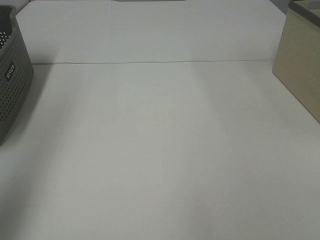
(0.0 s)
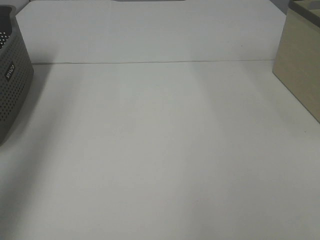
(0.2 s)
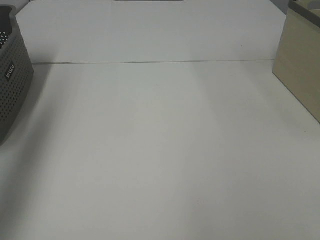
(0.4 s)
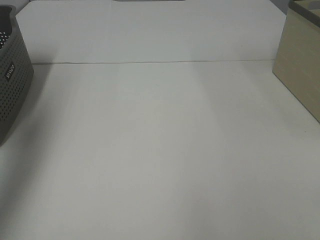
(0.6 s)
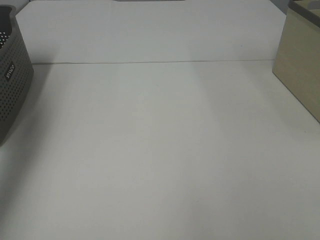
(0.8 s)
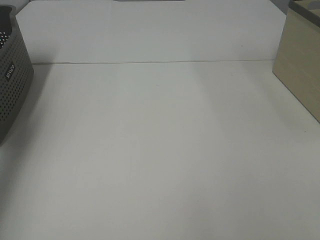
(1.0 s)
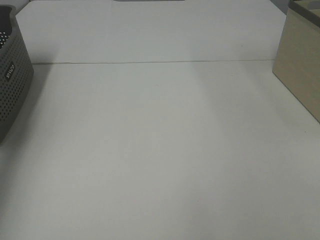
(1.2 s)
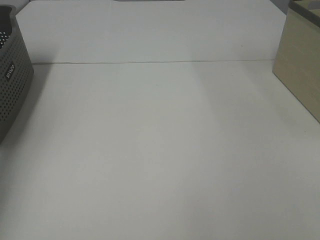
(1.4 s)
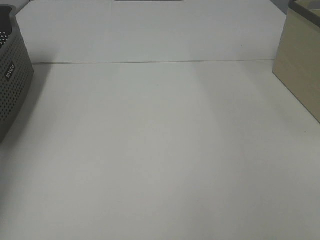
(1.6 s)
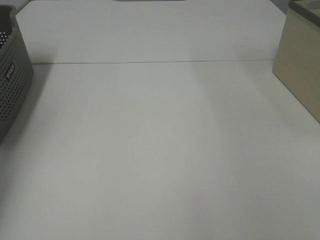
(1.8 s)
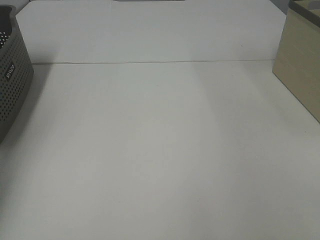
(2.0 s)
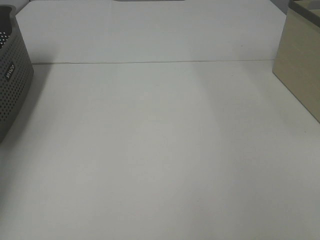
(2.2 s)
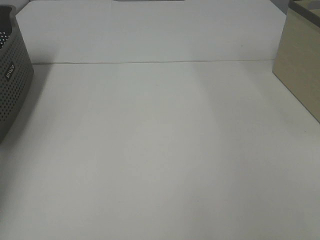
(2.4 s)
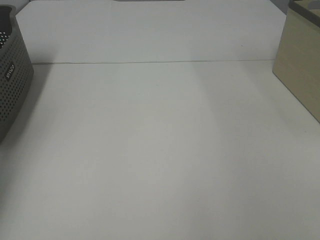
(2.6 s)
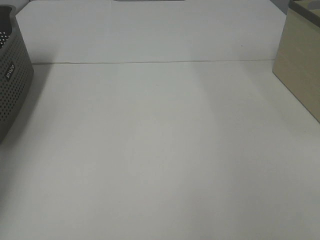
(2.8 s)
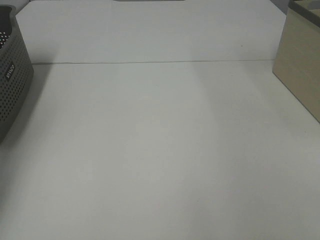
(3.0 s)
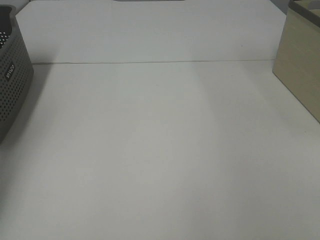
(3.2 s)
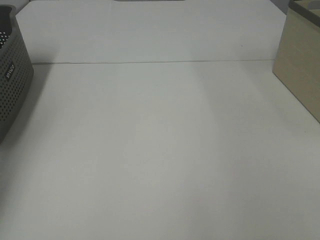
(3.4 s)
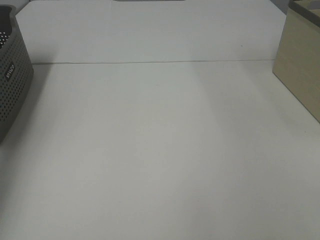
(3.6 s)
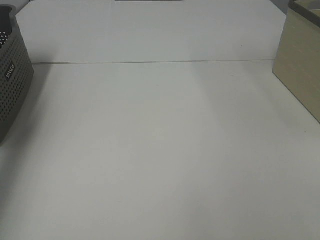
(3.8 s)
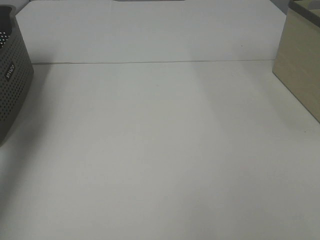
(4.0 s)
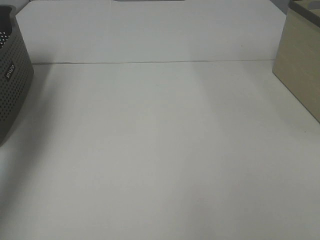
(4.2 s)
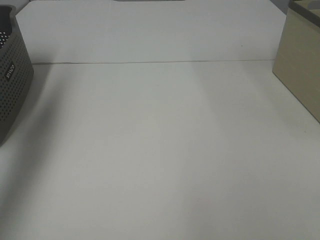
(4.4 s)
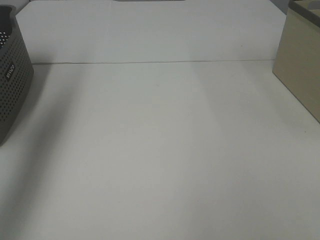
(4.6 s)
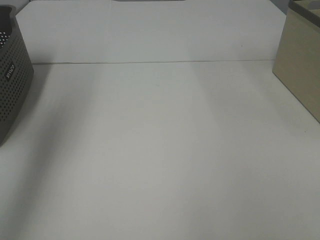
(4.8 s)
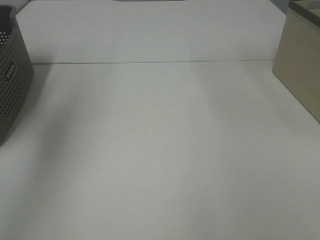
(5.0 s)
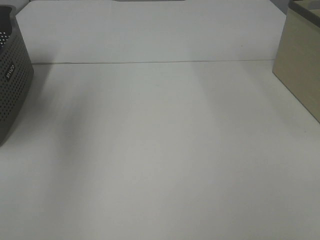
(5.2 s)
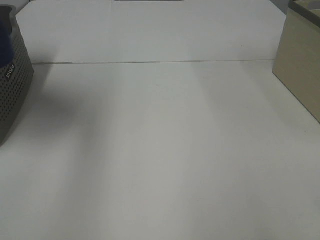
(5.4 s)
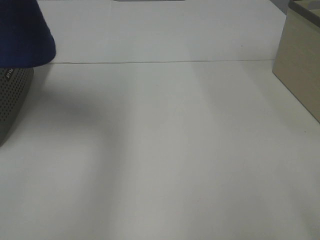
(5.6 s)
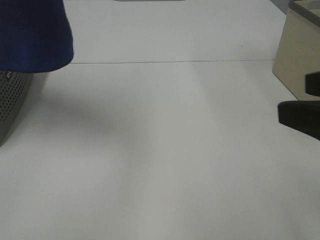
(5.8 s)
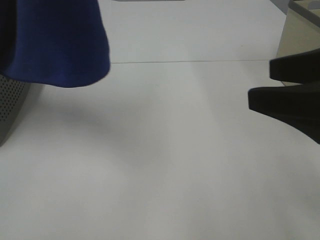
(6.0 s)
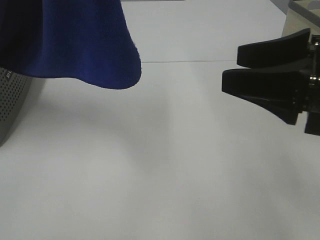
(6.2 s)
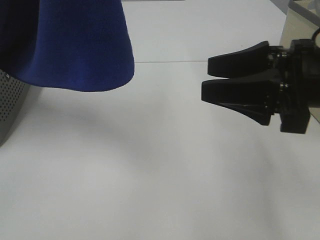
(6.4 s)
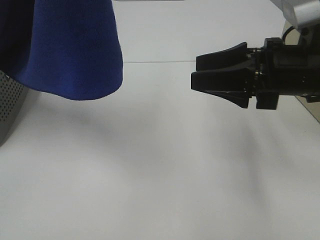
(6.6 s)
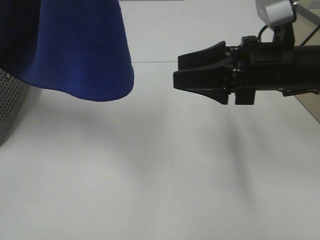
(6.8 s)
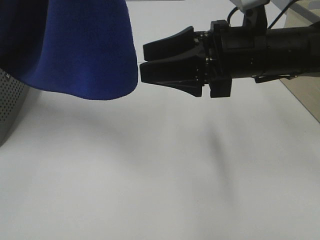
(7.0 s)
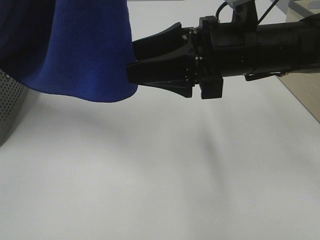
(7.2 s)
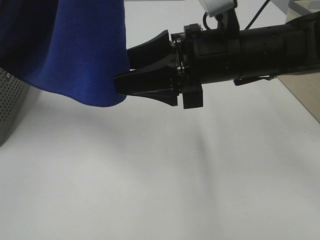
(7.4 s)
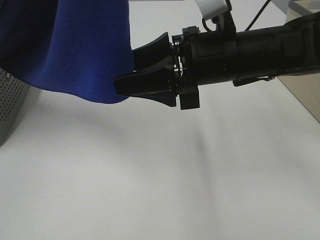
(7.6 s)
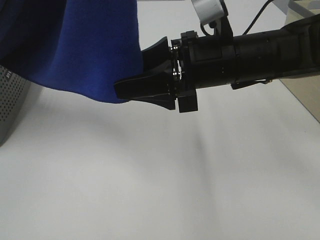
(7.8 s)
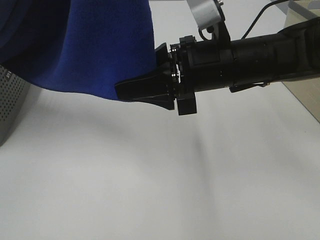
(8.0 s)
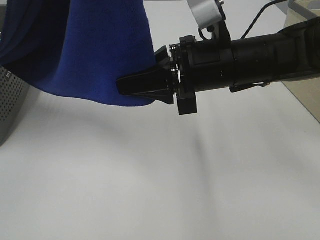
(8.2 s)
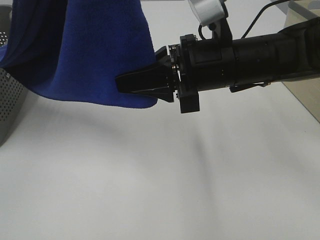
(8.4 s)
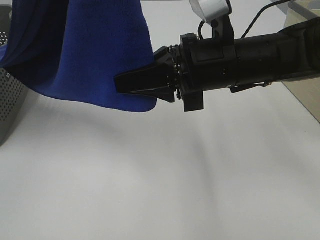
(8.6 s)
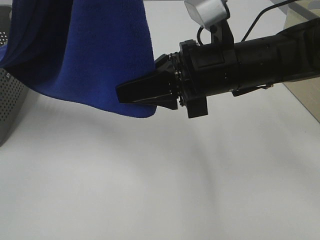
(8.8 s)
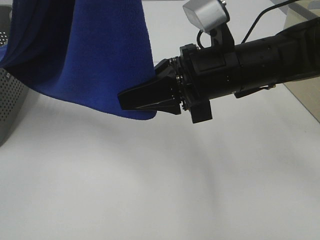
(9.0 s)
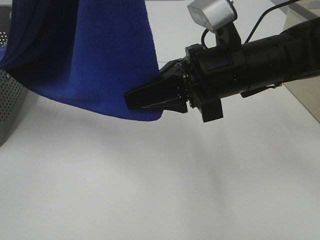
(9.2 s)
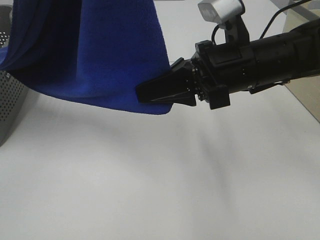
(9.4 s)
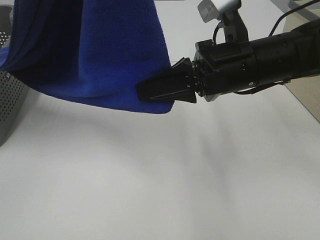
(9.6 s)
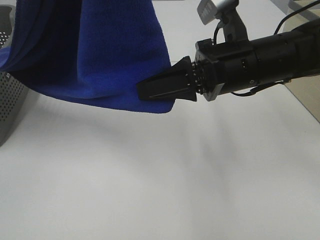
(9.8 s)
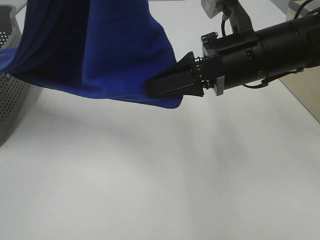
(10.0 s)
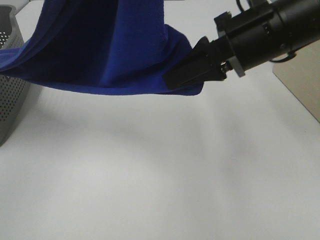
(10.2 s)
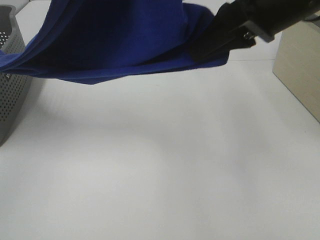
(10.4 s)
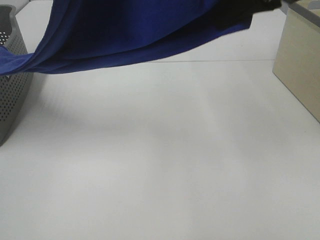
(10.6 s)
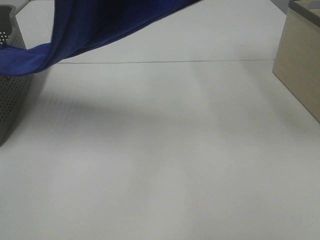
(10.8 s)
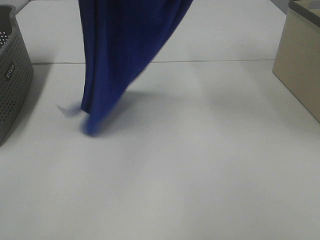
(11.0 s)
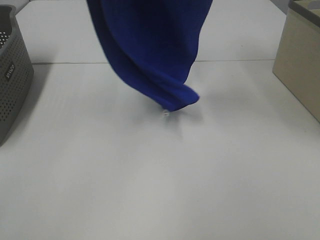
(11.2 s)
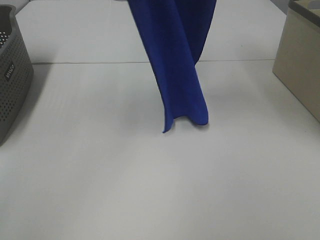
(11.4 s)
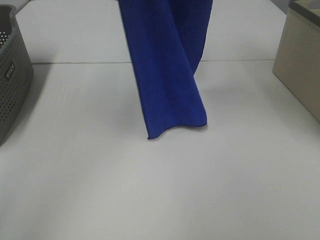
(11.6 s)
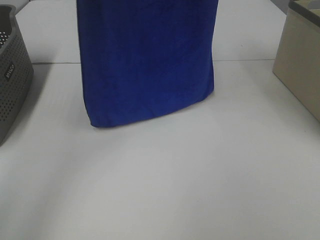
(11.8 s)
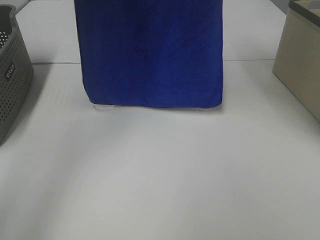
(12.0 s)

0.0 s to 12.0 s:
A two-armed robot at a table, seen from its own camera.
Task of the whole recording: Remove the towel and place it.
Step, 5.0 to 8.8 s: Right hand: grab a corner of the blue towel and straighten it.
0.0 to 1.6 s: The left gripper goes about 35 cm forward, downward and to the left.
3.0 to 4.4 s: The left gripper goes about 25 cm upward.
4.4 to 6.0 s: The left gripper travels to the right, backward and upward by roughly 30 cm, while the right gripper moves forward and to the left, roughly 15 cm.
6.0 to 7.6 s: The right gripper shifts roughly 20 cm to the left, forward and downward.
7.6 to 9.0 s: The right gripper closes.
9.0 to 10.4 s: The left gripper moves roughly 5 cm; the right gripper travels upward and to the right by approximately 15 cm.
10.4 to 12.0 s: The left gripper heads forward and to the left, covering approximately 20 cm; the right gripper travels upward and forward by approximately 20 cm.

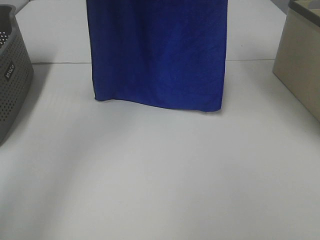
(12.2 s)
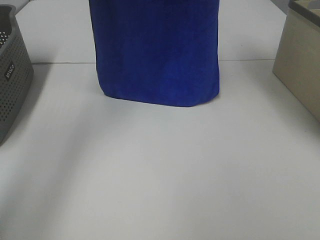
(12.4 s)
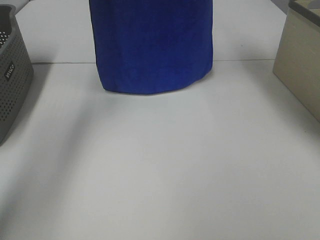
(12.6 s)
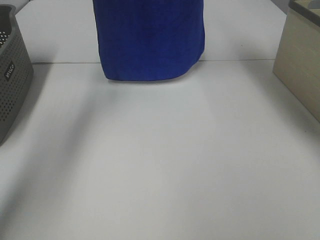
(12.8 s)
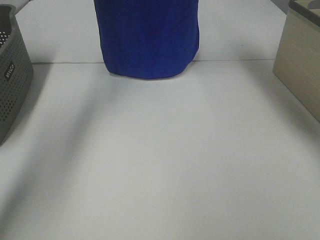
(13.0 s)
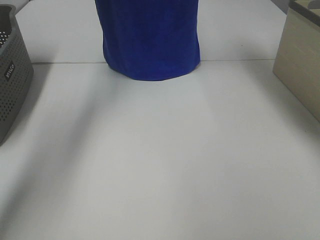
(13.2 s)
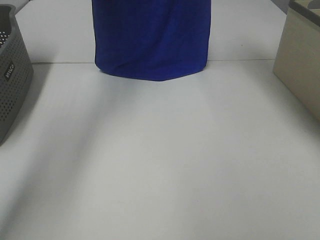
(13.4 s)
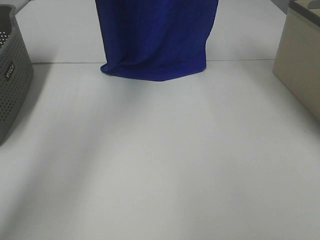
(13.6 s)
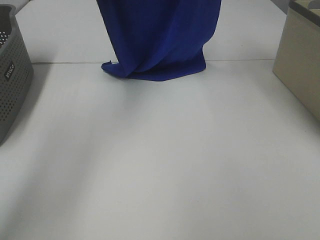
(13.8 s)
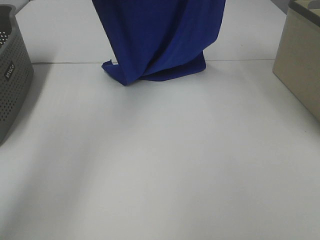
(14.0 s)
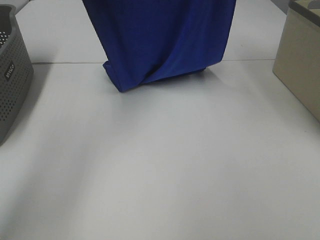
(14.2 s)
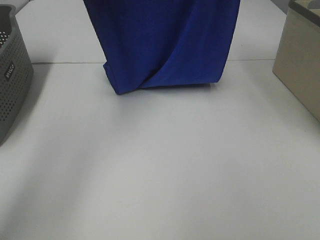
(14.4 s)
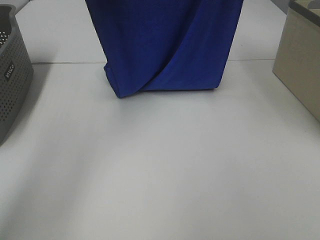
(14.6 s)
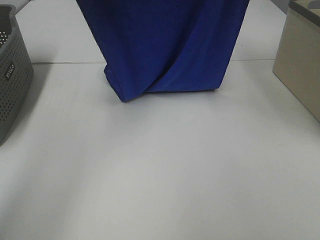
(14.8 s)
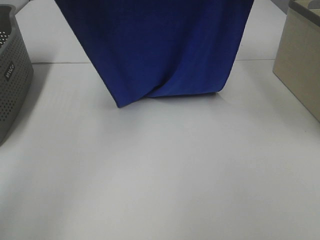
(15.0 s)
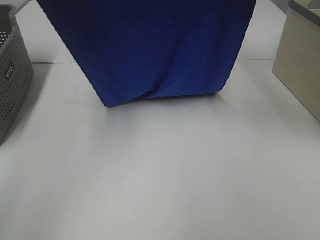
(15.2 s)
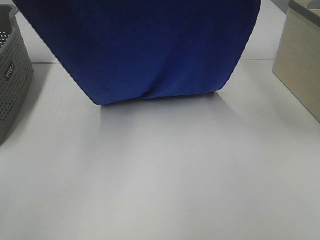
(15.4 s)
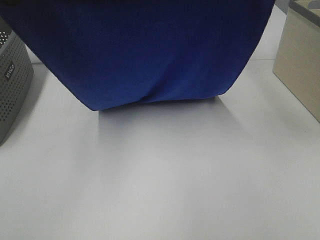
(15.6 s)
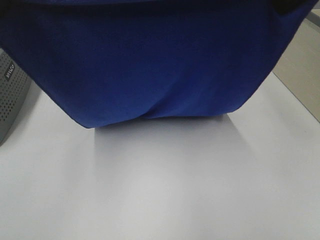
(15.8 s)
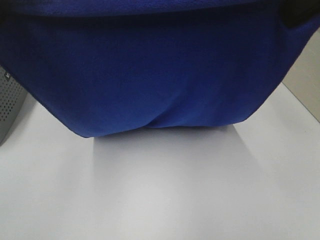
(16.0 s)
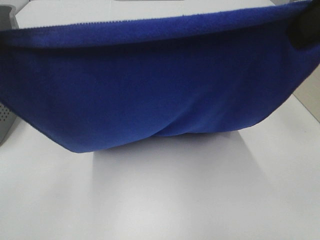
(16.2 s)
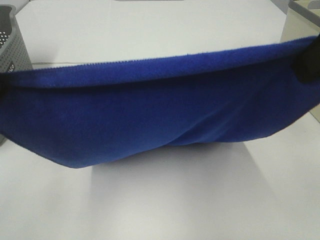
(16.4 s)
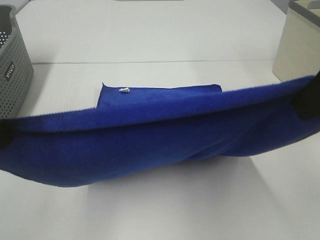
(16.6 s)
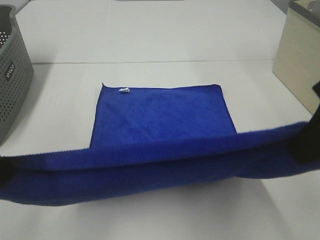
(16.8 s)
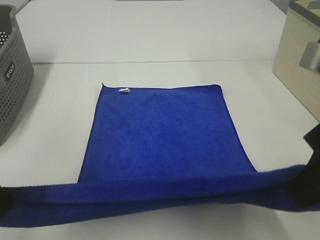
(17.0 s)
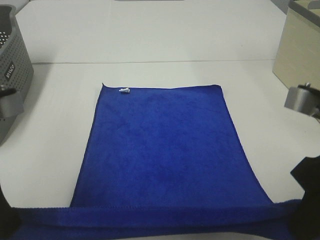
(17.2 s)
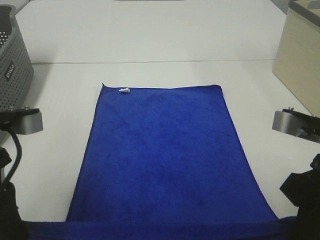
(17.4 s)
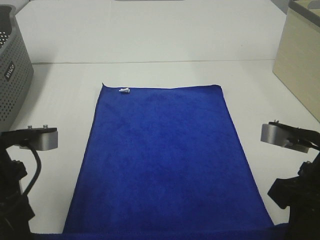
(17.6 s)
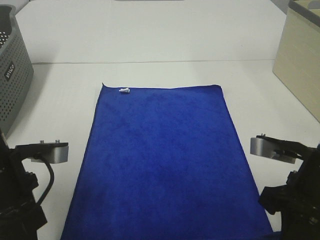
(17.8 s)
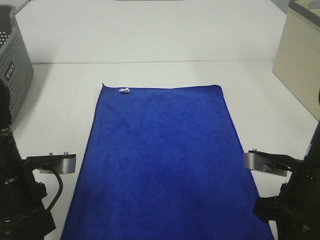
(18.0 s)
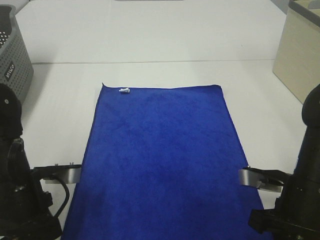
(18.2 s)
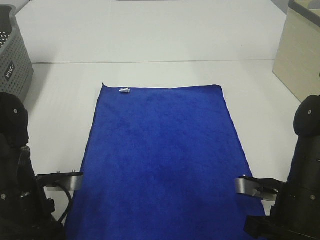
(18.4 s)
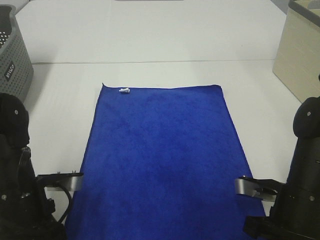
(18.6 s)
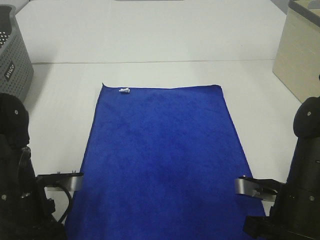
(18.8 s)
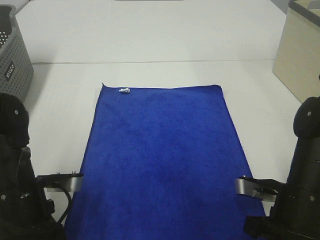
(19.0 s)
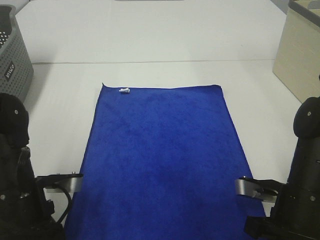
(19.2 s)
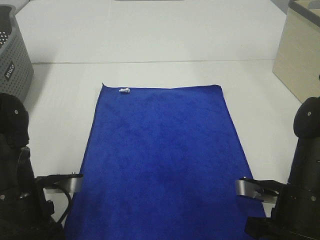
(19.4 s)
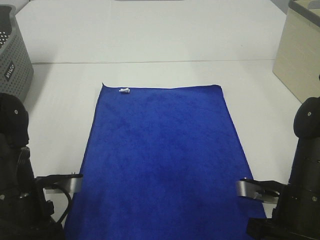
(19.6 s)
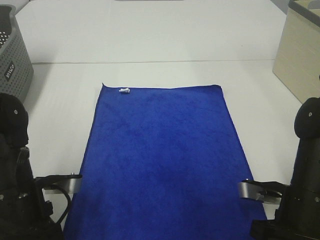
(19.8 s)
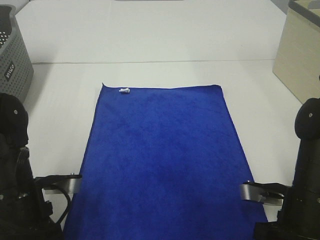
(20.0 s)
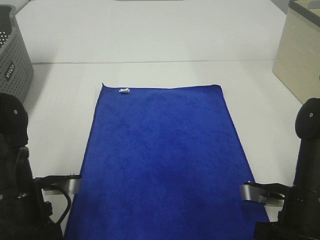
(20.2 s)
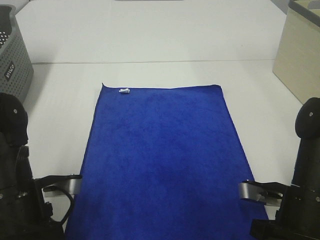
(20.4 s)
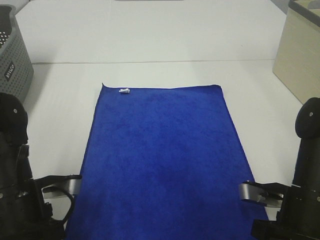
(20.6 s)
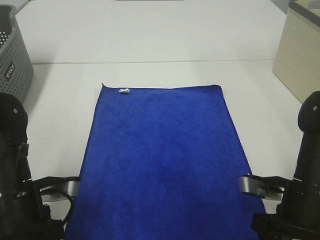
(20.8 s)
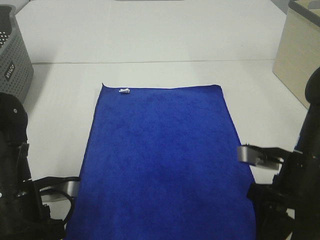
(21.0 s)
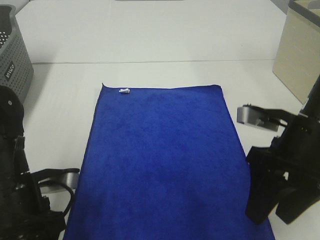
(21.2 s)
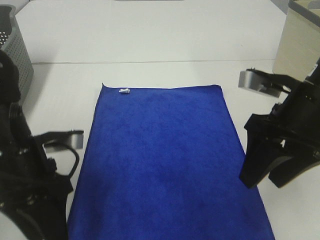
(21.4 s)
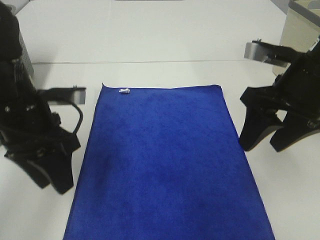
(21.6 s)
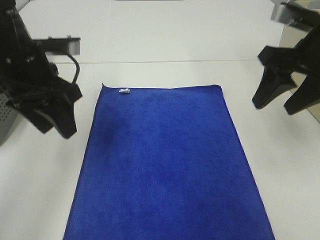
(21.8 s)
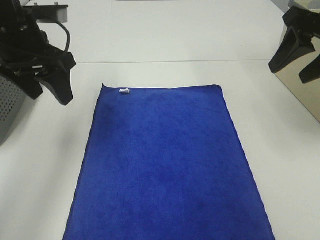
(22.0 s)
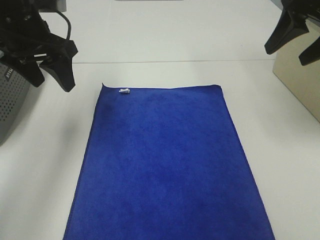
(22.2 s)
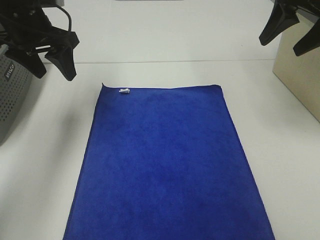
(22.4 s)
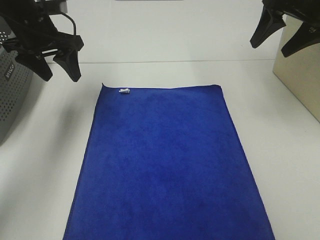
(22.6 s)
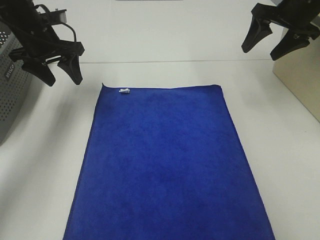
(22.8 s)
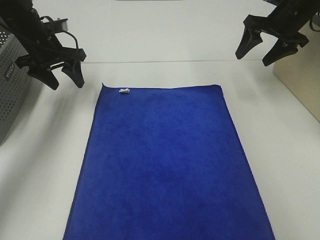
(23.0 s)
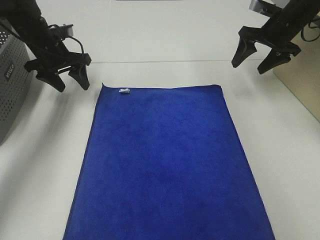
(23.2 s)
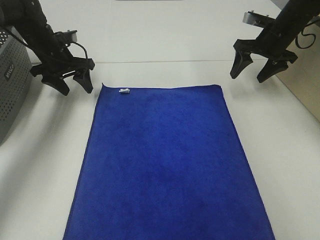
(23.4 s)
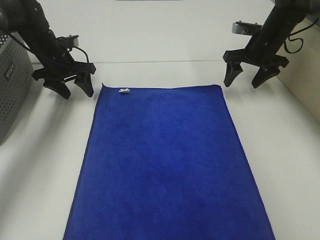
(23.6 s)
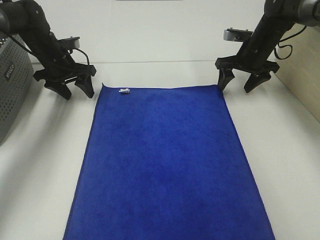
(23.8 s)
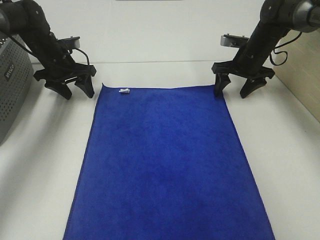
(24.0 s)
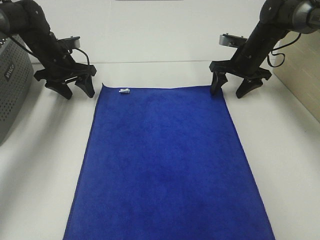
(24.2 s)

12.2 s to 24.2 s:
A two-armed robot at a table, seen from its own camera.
Task of the whole recording: Remove the towel and place it.
Step, 12.2 to 15.4 s: Left hand: spread the blue towel flat on the table.
Step, 12.2 to 15.4 s: Right hand: spread the blue towel flat on the table.
12.2 to 13.8 s: The left gripper heads forward, covering some 5 cm.
13.8 to 15.2 s: Both grippers move backward, about 10 cm.
15.2 to 16.6 s: The grippers both shift backward and downward by roughly 20 cm.
16.6 to 18.2 s: Both grippers move downward, approximately 20 cm.
18.2 to 19.8 s: The grippers make only small movements.
19.8 to 21.2 s: The right gripper moves upward, approximately 10 cm, and opens its fingers. The left gripper opens its fingers.
21.2 to 22.6 s: Both grippers move forward and upward, approximately 25 cm.
22.6 to 24.2 s: Both grippers travel together downward and forward, about 15 cm.
